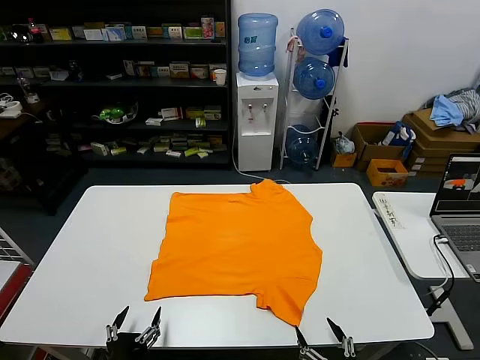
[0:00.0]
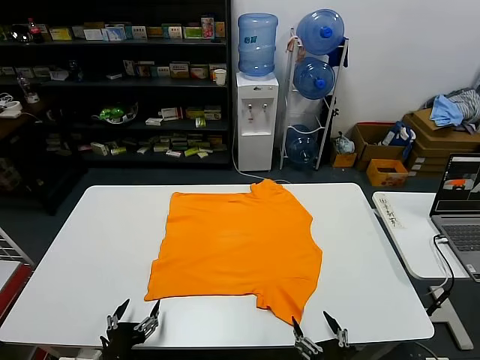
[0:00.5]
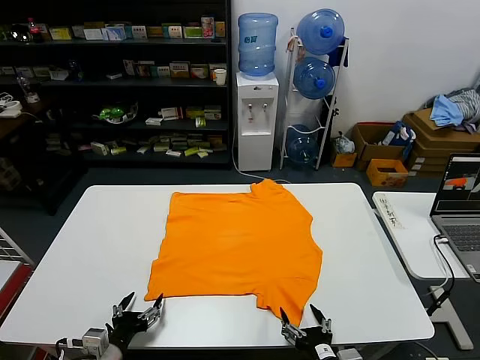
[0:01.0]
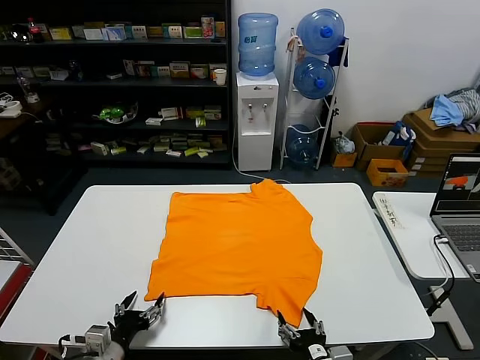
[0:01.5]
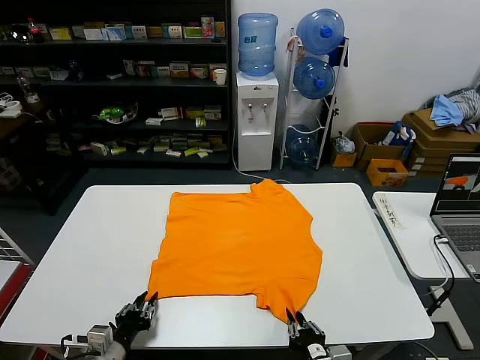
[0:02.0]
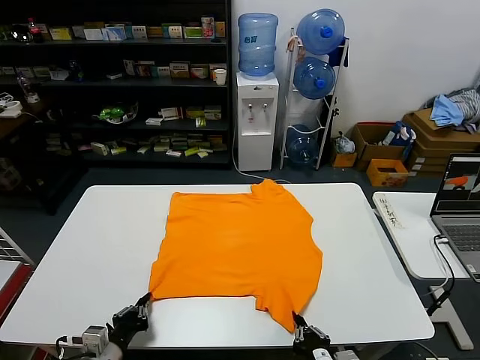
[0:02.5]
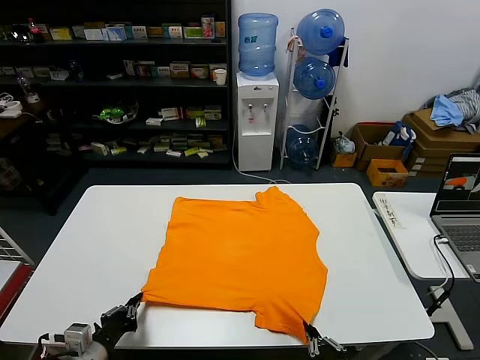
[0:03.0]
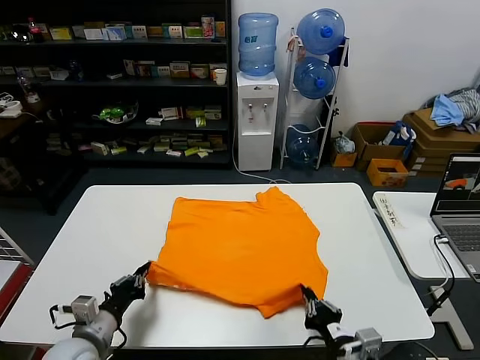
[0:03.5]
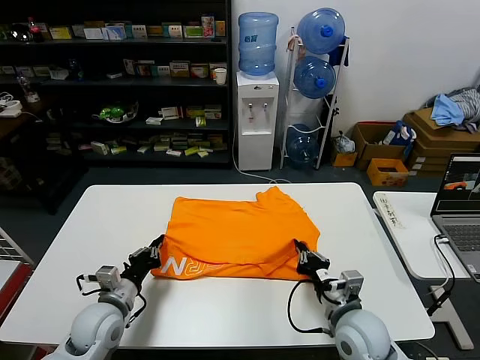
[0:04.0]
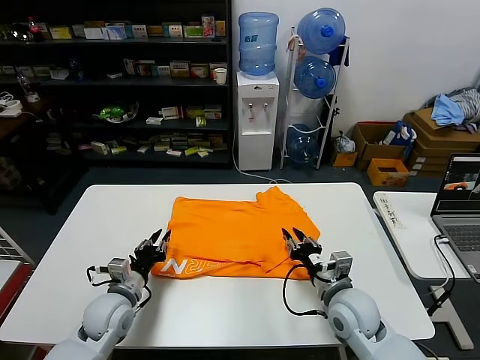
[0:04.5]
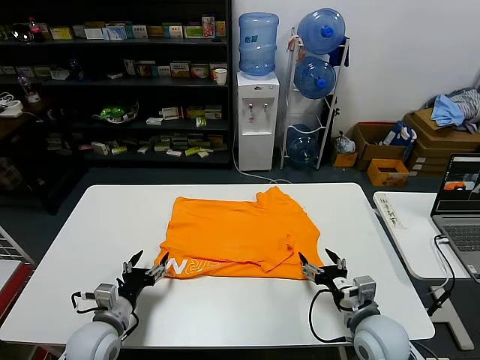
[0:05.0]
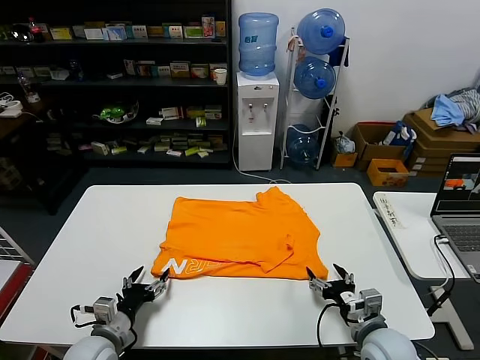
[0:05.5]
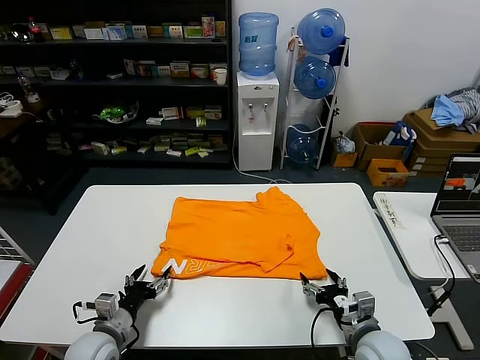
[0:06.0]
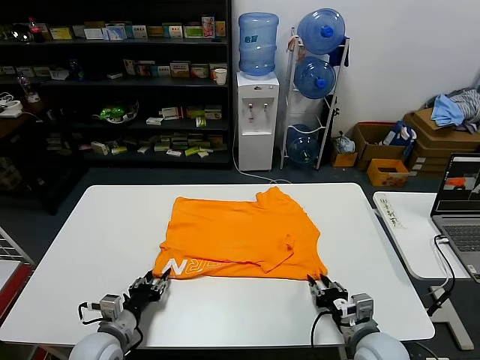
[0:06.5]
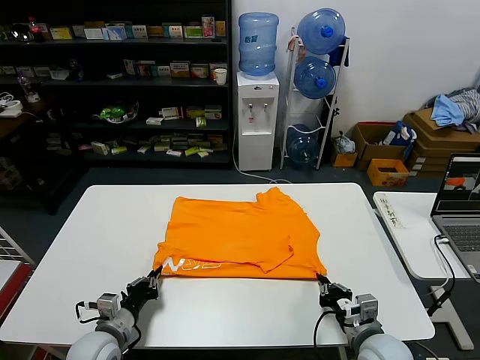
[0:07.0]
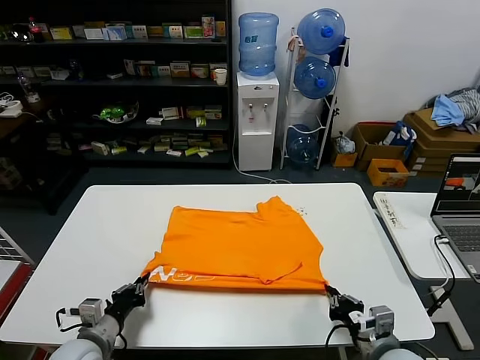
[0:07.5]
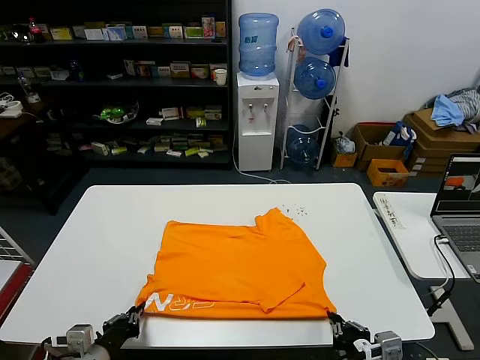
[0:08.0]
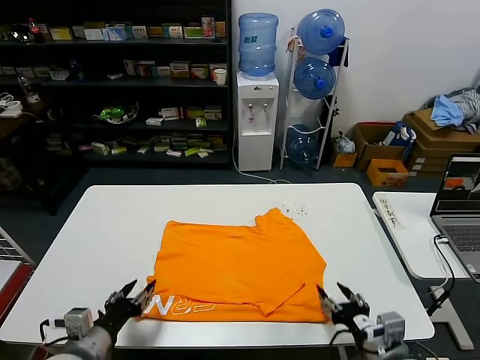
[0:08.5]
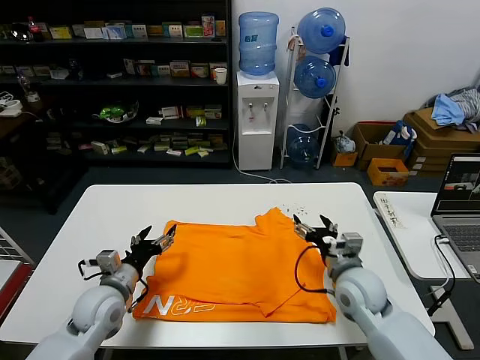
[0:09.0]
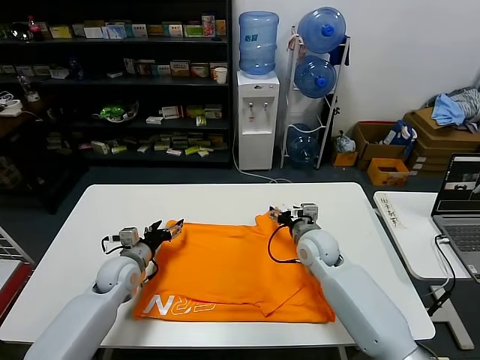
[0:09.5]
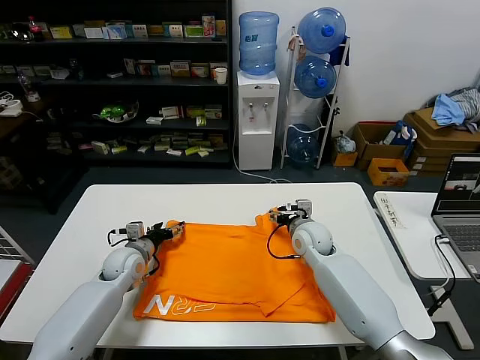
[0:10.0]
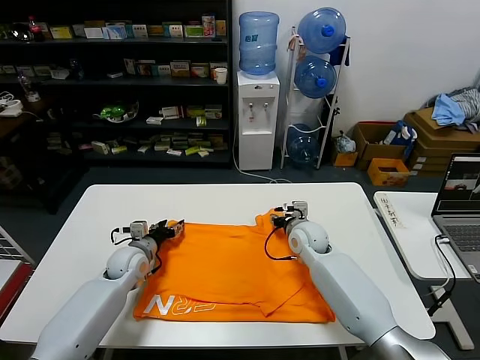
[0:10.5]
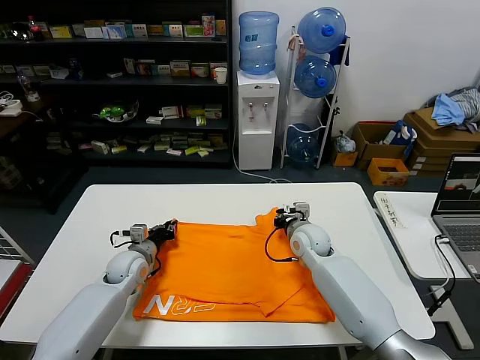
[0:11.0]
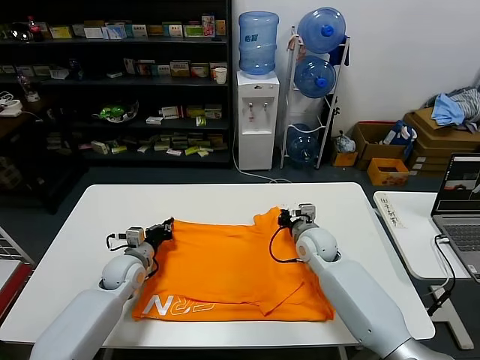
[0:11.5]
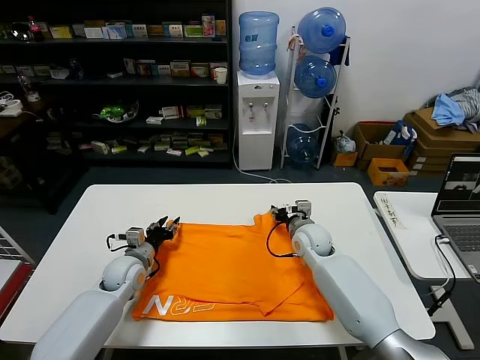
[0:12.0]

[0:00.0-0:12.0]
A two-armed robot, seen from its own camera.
Task of the whole recording: fold and organize the clothes.
Step, 0:00.0 to 0:02.5: use both grippers simultaneously to clamp the lower edge of the clothing fabric.
Step, 0:03.0 to 0:04.5: use both grippers to drag the lower edge of the fabric forward and fold it over the upper edge.
Step, 0:05.0 to 0:08.0: Drag the clothes downward with both gripper.
0:02.0 to 0:04.0: The grippers both shift forward by about 15 cm. The left gripper closes its fingers.
0:04.0 to 0:06.0: The right gripper shifts by approximately 10 cm, and opens its fingers. The left gripper changes place by approximately 5 cm, and opens up.
0:06.0 to 0:08.0: Both grippers travel together backward and upward, some 10 cm. The left gripper closes its fingers. Meanwhile the right gripper closes up.
0:08.0 to 0:10.0: Both grippers travel together forward, roughly 30 cm. The left gripper opens up, while the right gripper opens its fingers.
0:10.0 to 0:12.0: The left gripper closes its fingers, while the right gripper closes and opens again.

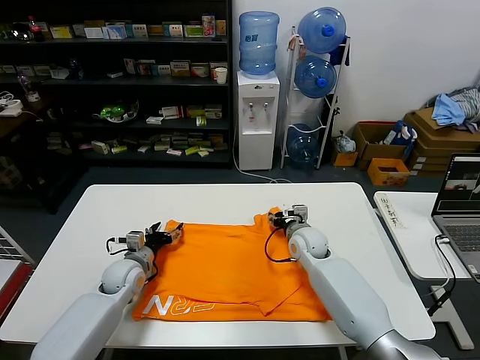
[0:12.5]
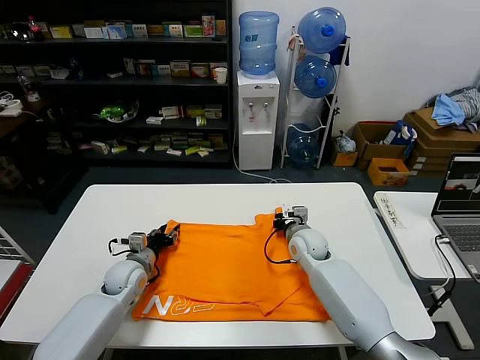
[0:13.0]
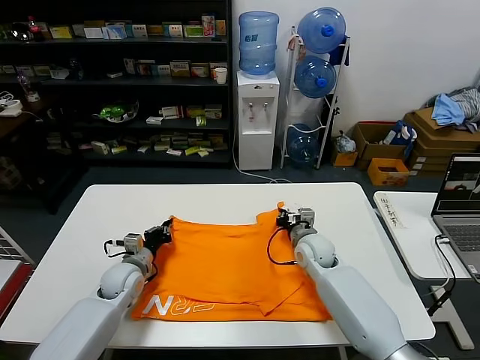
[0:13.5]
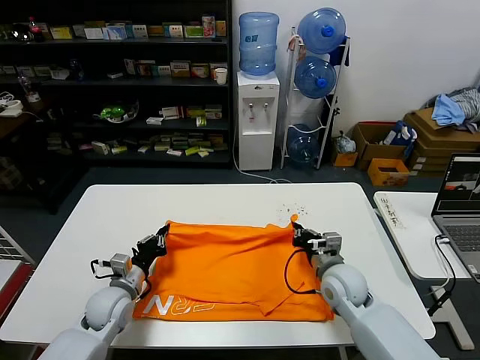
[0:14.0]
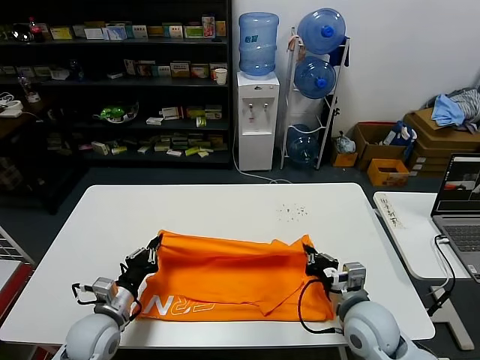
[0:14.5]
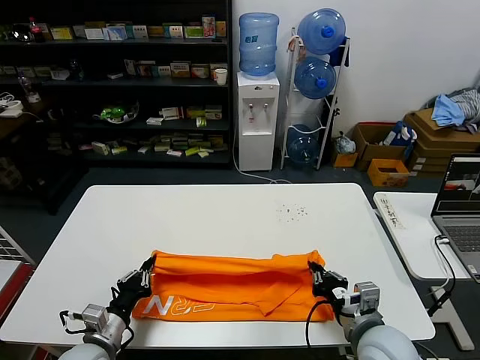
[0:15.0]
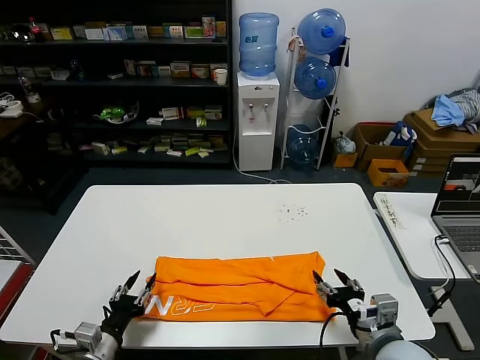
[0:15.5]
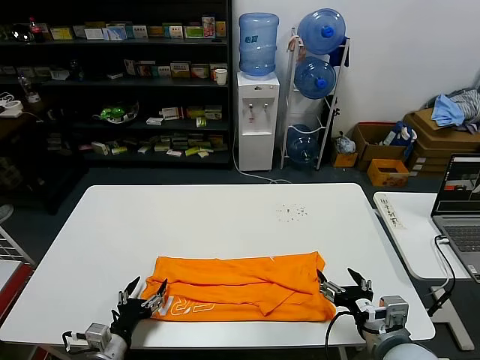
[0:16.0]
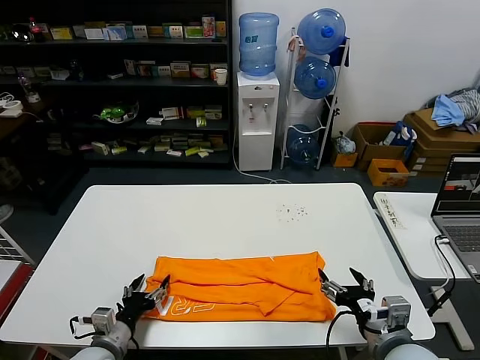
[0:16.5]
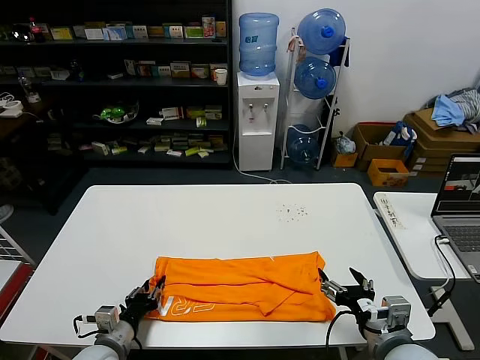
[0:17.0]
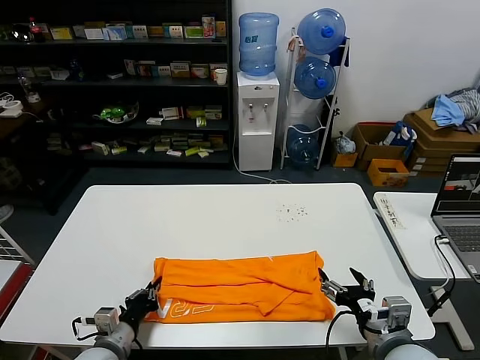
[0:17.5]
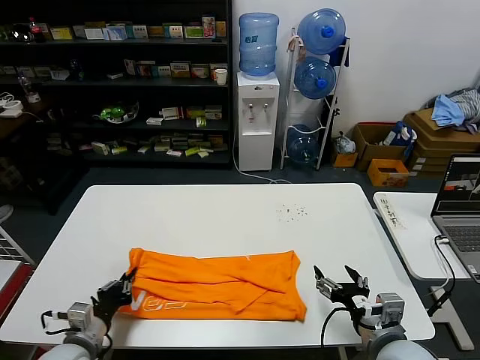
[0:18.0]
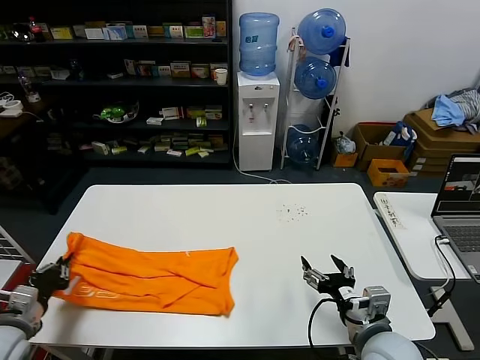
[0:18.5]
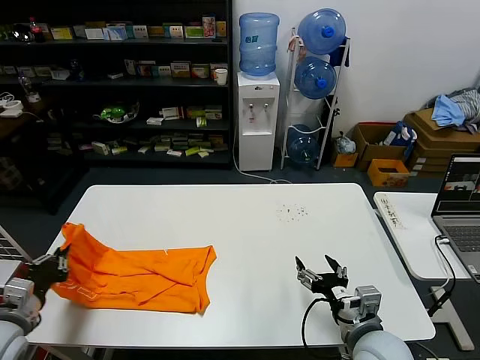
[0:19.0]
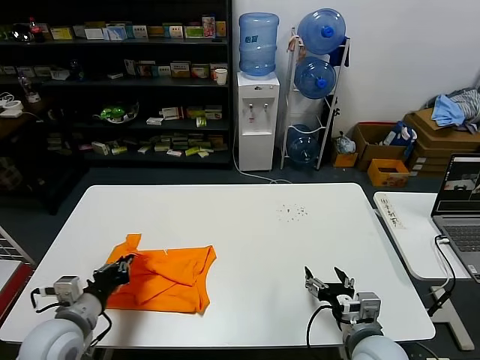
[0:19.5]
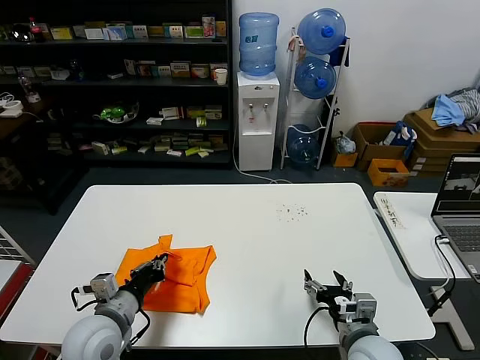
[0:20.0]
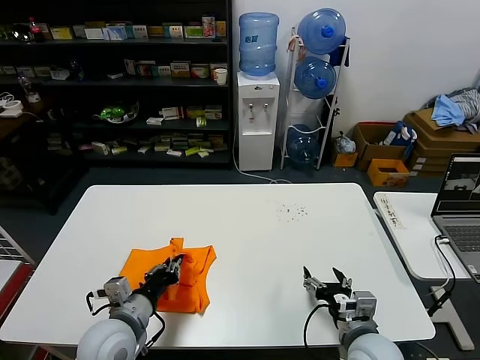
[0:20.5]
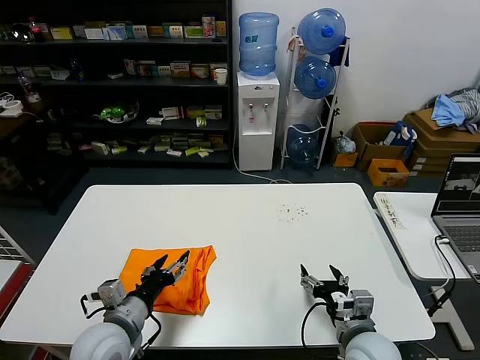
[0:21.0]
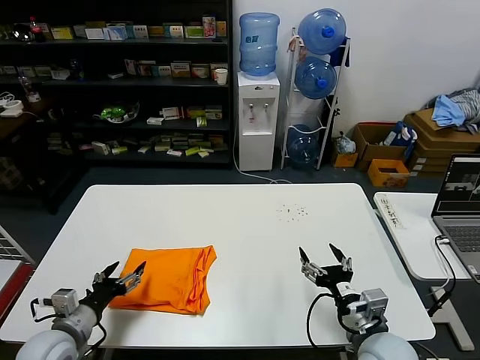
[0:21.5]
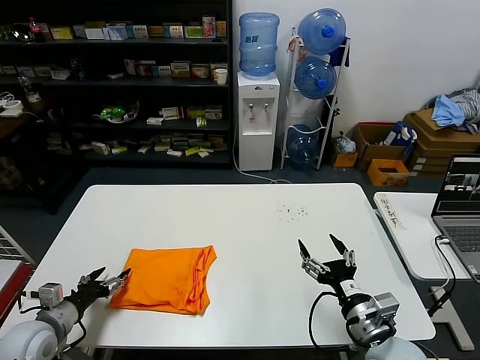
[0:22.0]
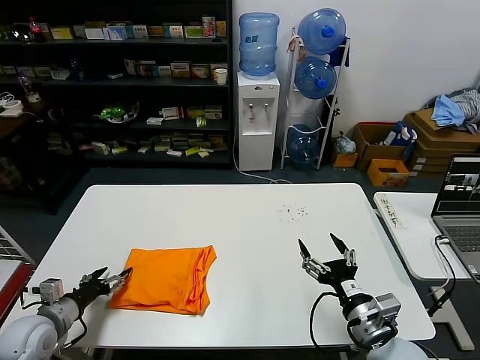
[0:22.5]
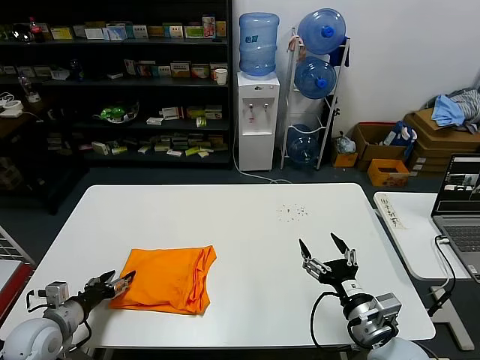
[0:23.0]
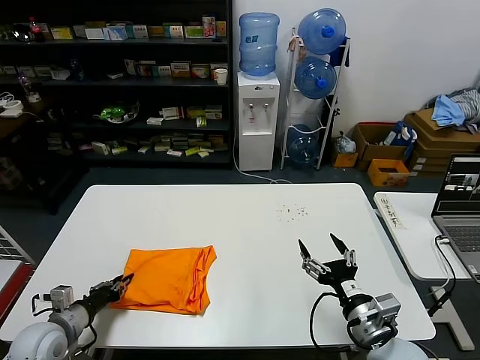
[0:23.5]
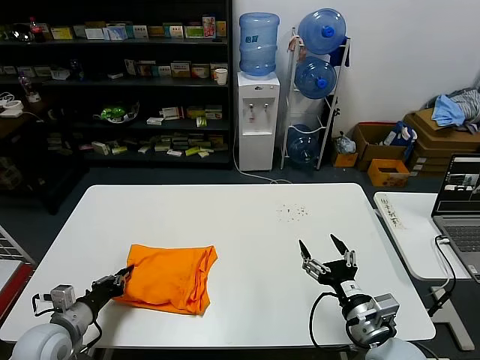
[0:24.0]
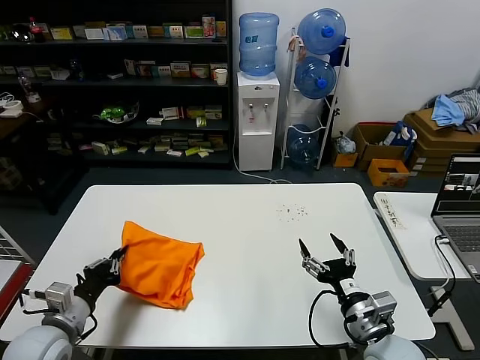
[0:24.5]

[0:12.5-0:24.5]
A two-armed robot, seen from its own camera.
Task of the whole recording: fold and organize the clothes.
Step, 0:13.5 to 0:15.0: use both grippers to drag the upper edge of the fabric backward and fold it over the lower edge.
Step, 0:15.5 to 0:17.5: use the left gripper to clamp the left edge of the fabric.
Step, 0:18.0 to 0:20.5: use the left gripper to drag the left edge of the fabric to the left and folds it over the right edge.
0:12.5 to 0:14.5: The left gripper goes about 15 cm backward, and closes its fingers; the right gripper is displaced backward by about 20 cm, and closes.
0:14.5 to 0:16.5: The two grippers go some 5 cm backward. The right gripper opens, while the left gripper opens its fingers.
0:16.5 to 0:18.5: The left gripper goes roughly 15 cm to the left and upward, and closes its fingers.
0:18.5 to 0:20.5: The right gripper moves some 5 cm, while the left gripper travels to the right by roughly 20 cm.
0:20.5 to 0:22.5: The right gripper is displaced upward by about 5 cm. The left gripper travels to the left by approximately 20 cm, and opens its fingers.
0:22.5 to 0:24.5: The left gripper goes approximately 5 cm to the right, and closes.

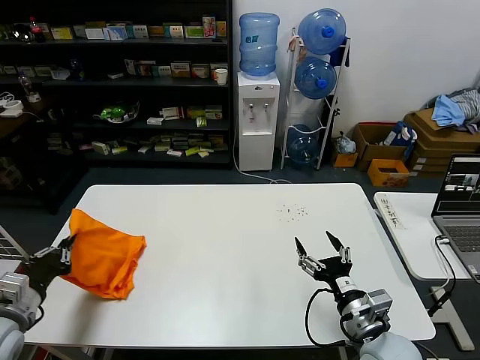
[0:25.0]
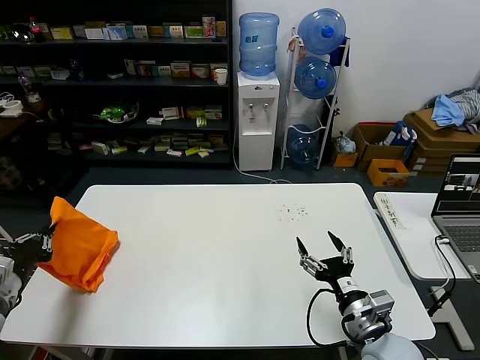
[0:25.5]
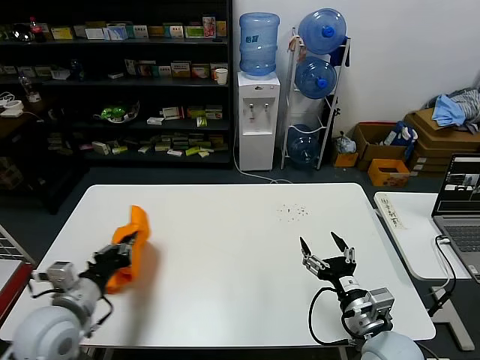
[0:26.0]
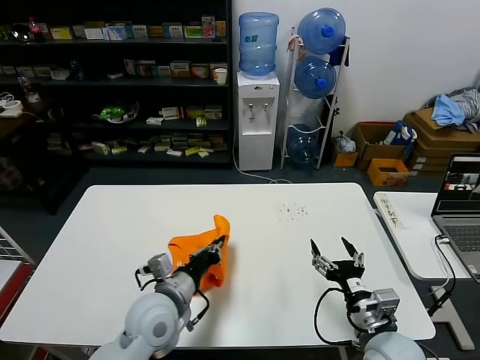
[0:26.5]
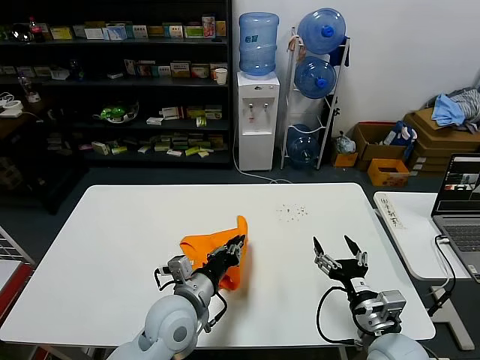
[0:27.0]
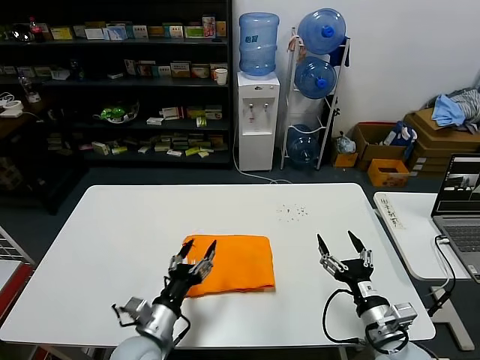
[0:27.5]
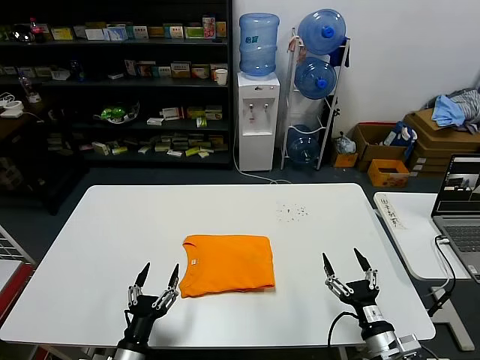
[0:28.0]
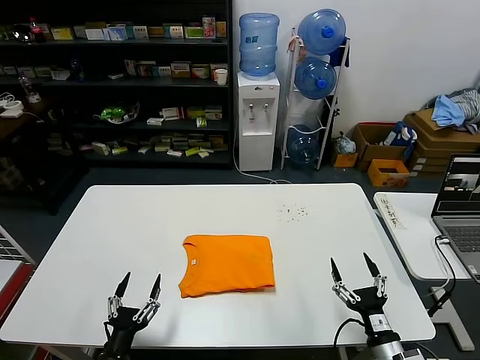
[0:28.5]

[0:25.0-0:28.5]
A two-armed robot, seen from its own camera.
Task of the whole recording: fold and organize the clothes.
Step, 0:25.0 to 0:27.0: Flip the folded clothes over with left gripper.
0:25.0 to 0:27.0: The left gripper heads to the right, covering approximately 30 cm.
0:27.0 to 0:28.5: The right gripper heads downward, covering about 10 cm. The left gripper travels to the left, backward and downward by some 25 cm, and opens up.
